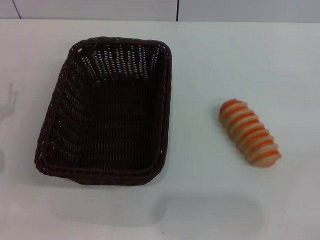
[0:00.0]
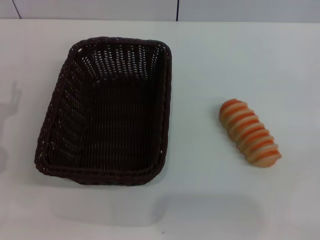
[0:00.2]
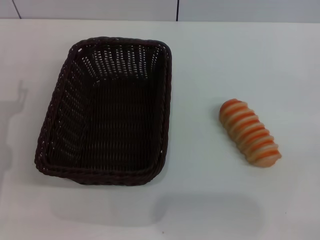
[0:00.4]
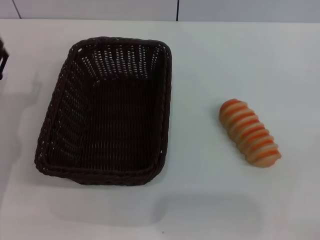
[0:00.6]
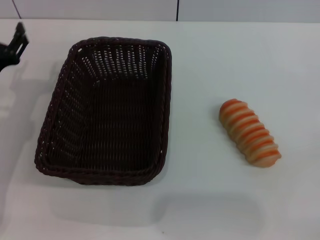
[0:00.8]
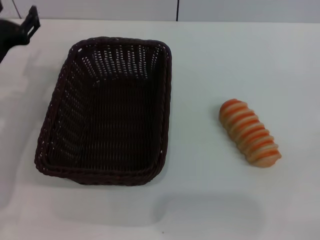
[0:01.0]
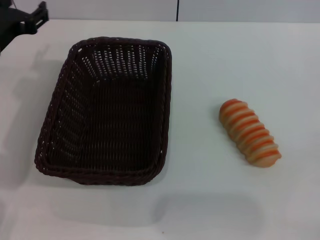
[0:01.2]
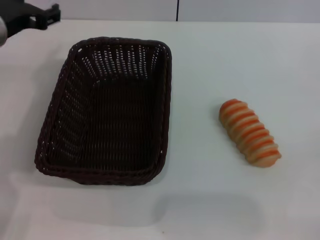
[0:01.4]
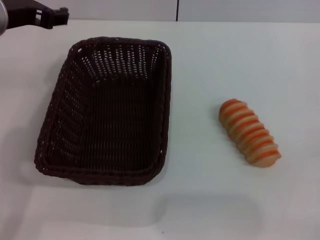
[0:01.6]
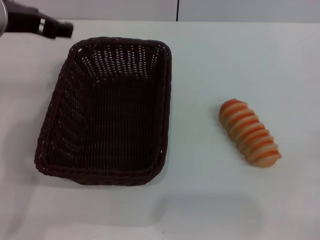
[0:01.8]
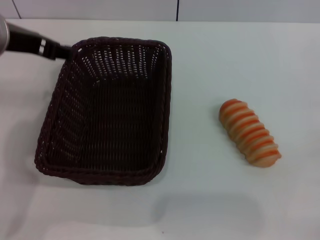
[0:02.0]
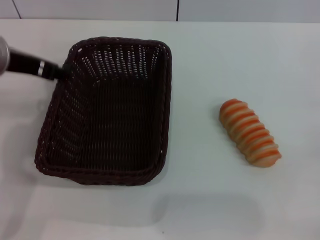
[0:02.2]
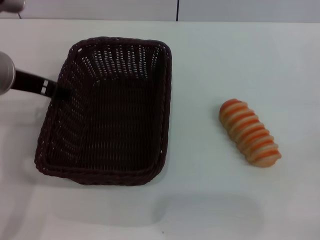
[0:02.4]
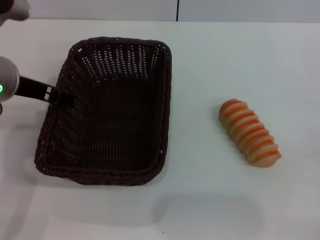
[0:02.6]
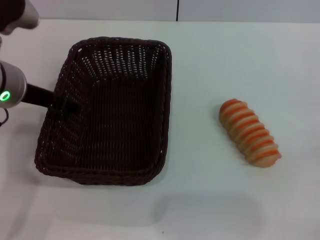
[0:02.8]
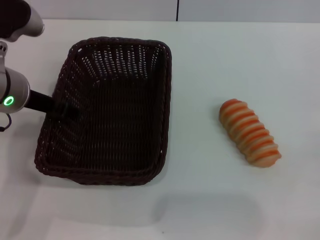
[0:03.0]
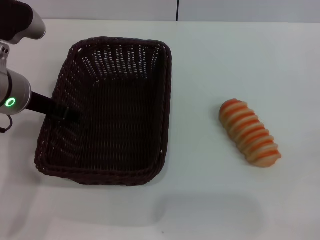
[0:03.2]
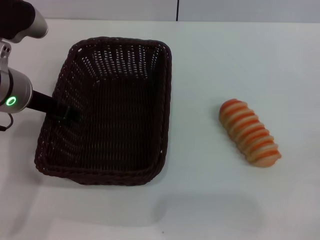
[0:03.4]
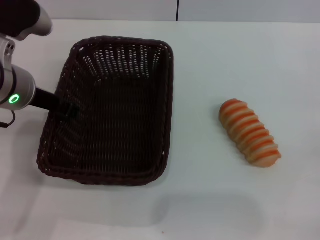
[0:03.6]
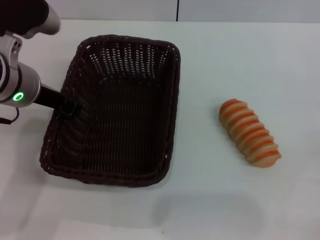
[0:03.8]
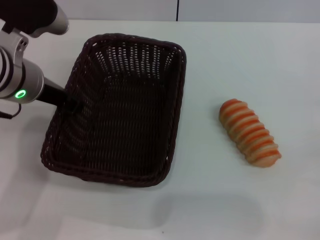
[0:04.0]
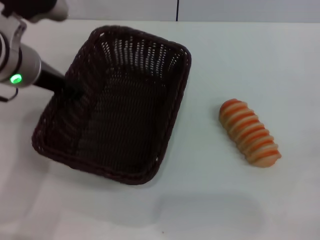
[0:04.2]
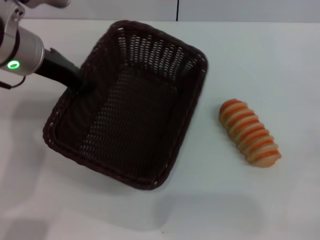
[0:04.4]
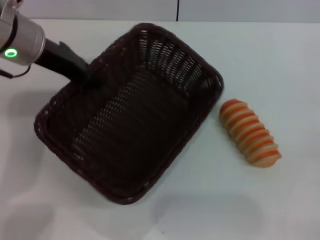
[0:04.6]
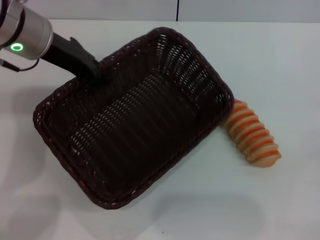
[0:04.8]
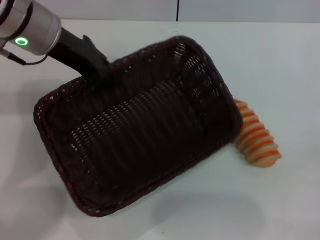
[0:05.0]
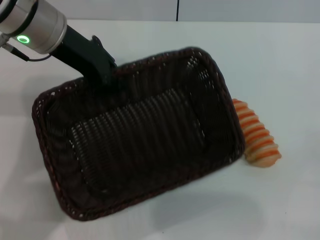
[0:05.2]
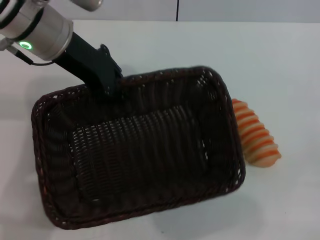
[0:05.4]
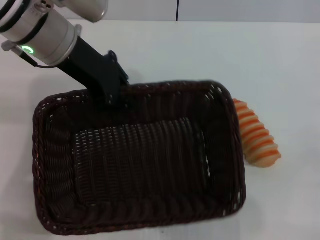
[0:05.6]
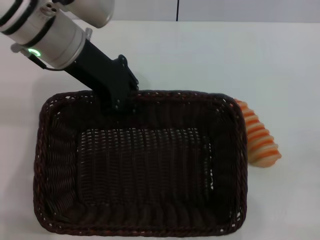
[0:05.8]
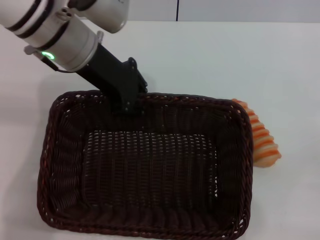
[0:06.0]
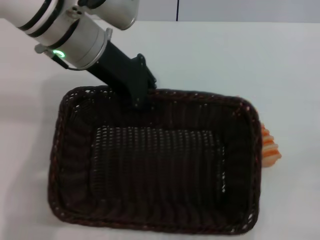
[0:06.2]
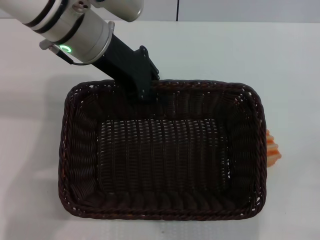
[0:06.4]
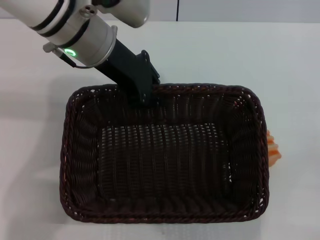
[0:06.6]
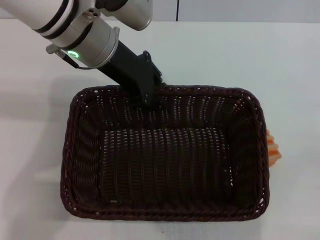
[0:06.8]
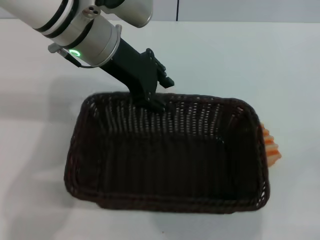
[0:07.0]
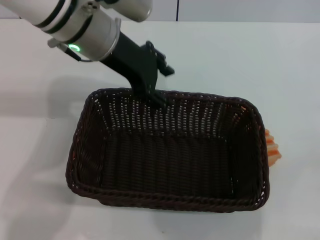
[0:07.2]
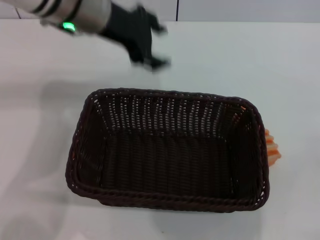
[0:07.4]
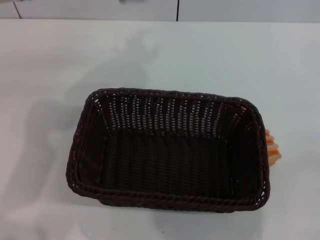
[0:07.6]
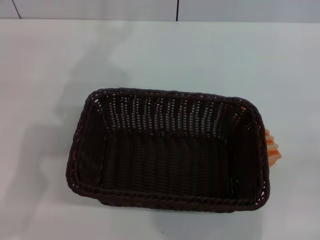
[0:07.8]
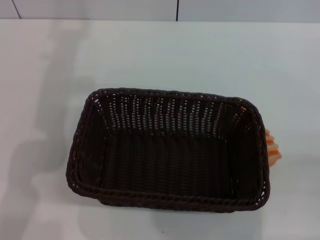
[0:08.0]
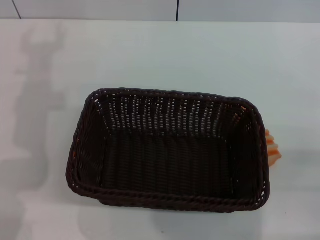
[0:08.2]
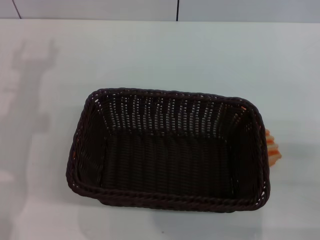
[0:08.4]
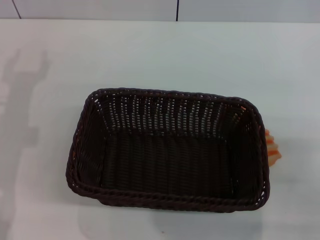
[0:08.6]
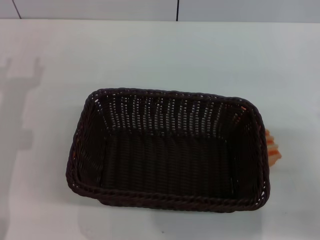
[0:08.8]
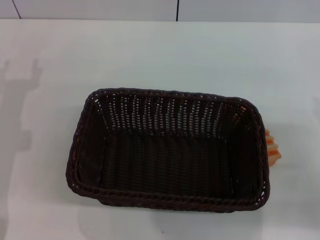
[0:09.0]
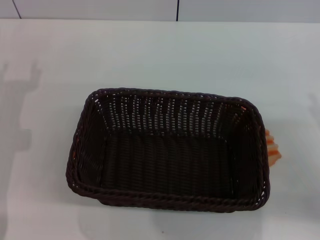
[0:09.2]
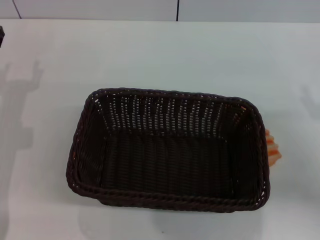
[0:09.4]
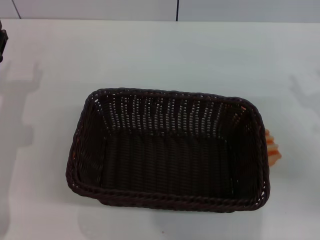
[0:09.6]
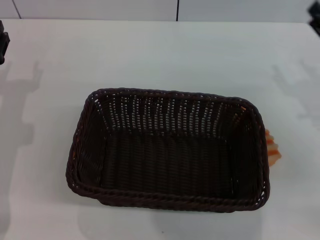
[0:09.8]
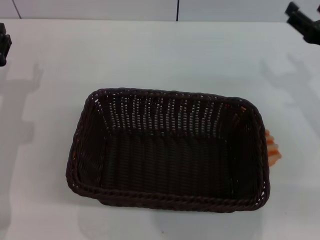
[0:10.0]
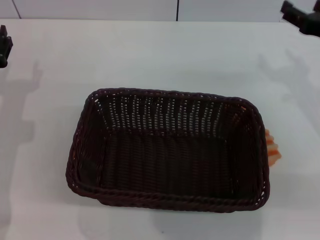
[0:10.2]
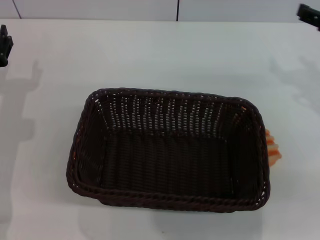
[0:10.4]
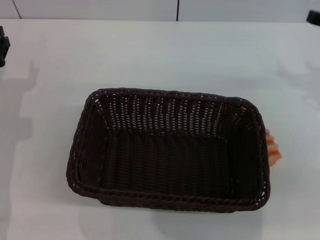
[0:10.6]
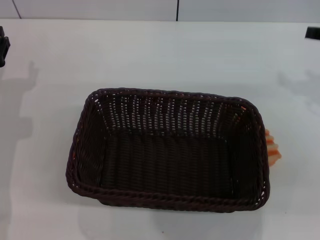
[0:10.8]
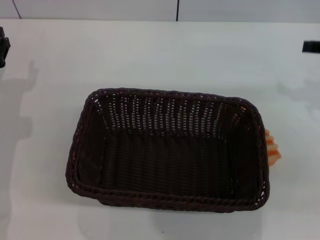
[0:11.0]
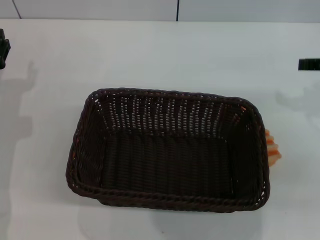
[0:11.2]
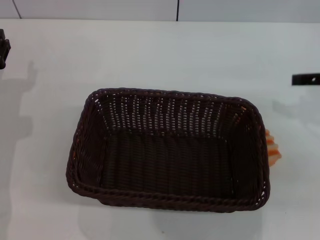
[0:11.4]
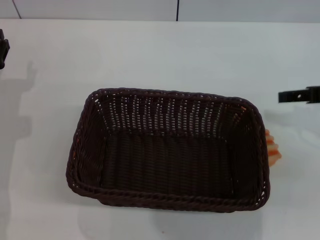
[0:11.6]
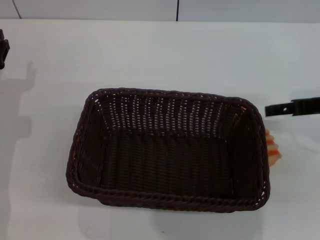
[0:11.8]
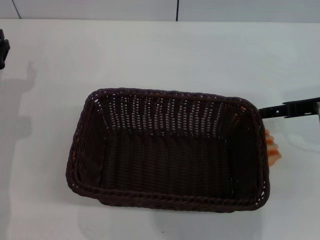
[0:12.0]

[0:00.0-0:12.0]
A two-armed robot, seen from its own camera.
Step, 0:00.0 to 0:04.8: Pick up the dark basket with the left gripper.
Step, 0:05.0 to 0:07.2: Place the dark basket in the center of view with the left gripper.
0:00.0 to 0:01.6: The left gripper shifts some 25 cm upward, to the right and forward.
0:01.6 to 0:03.0: The left gripper moves downward, approximately 5 cm.
0:03.0 to 0:04.4: The left gripper shifts by roughly 5 cm, and closes its fingers.
0:04.4 to 0:06.0: The left gripper travels to the right by approximately 5 cm.
0:06.0 to 0:07.6: The left gripper opens up.
0:07.6 to 0:09.0: The right gripper shifts some 5 cm forward; the left gripper moves downward, to the left and backward, about 25 cm.
0:09.0 to 0:10.4: The right gripper shifts roughly 15 cm upward and forward.

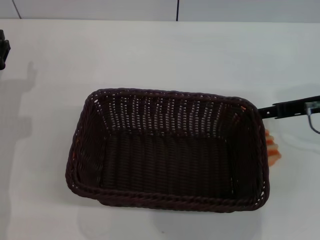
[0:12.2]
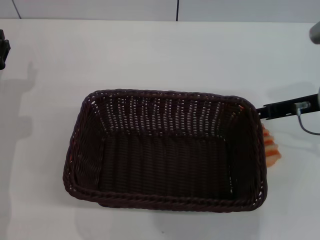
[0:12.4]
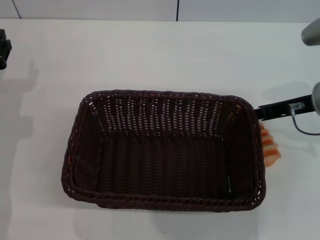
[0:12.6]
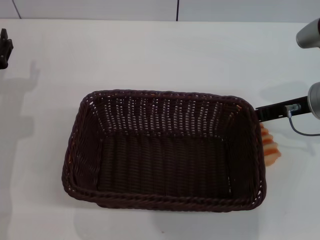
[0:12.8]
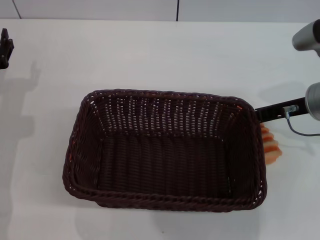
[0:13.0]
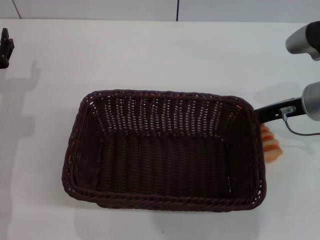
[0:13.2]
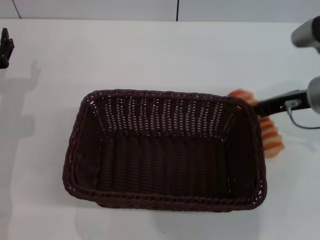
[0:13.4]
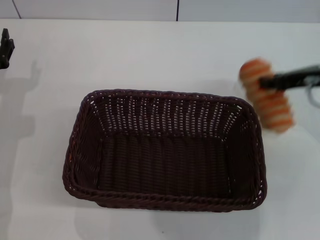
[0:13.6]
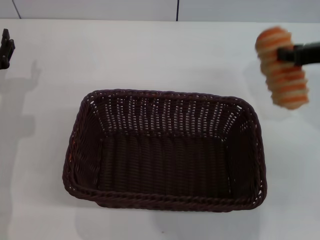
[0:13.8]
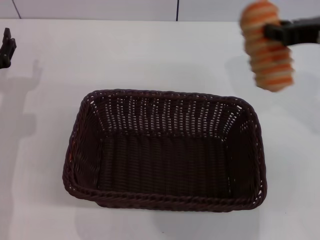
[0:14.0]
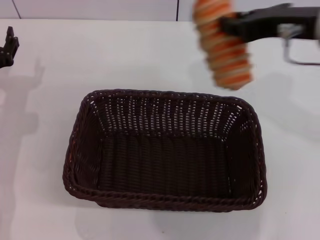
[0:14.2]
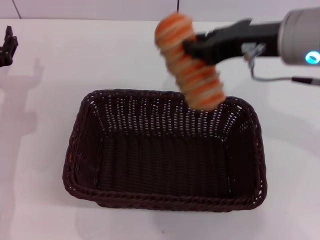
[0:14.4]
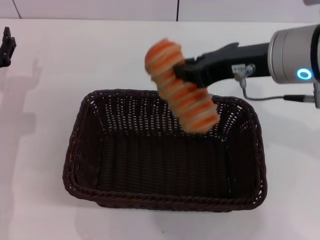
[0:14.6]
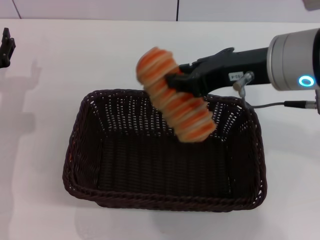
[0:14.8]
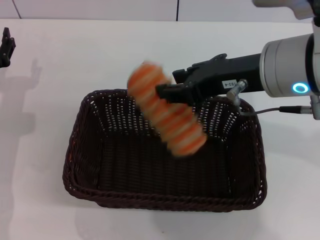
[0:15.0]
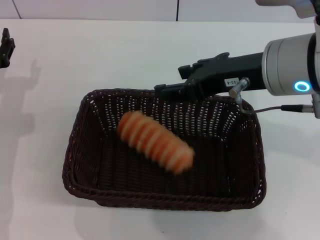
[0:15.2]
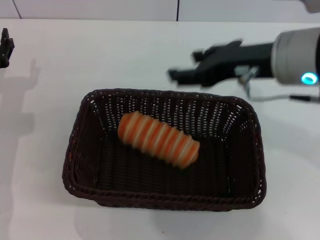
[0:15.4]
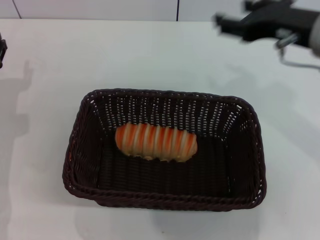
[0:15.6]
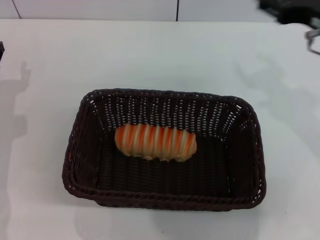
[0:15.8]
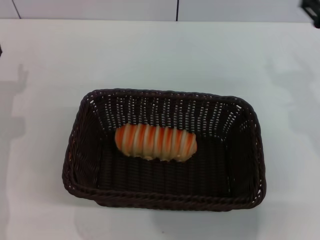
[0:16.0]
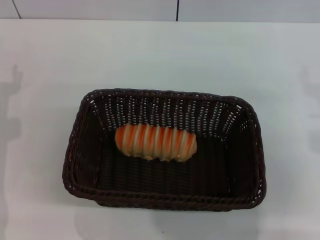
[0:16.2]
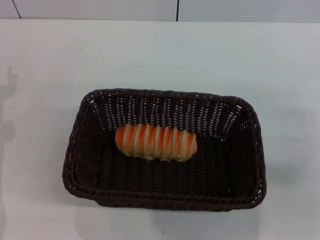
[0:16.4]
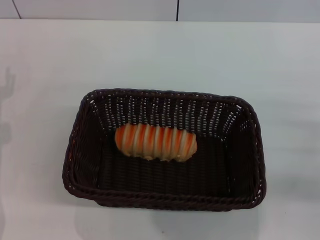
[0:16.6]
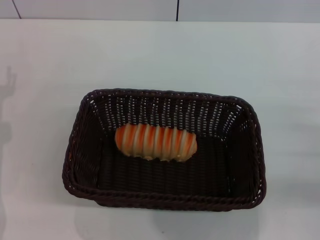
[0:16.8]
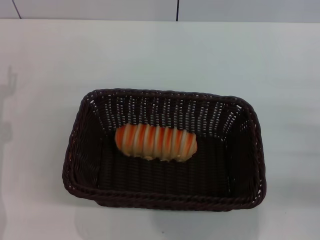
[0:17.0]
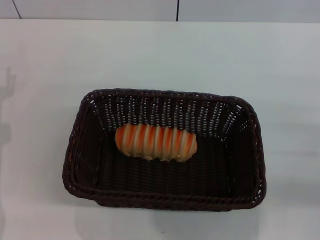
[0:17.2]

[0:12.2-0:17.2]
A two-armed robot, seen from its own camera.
Step, 0:14.0 to 0:15.2: Place the long bread into the dark basket with the right gripper.
0:12.2 to 0:13.8: The right gripper heads upward, covering roughly 5 cm, and closes up.
0:13.8 to 0:15.6: The right gripper moves to the left, approximately 5 cm, and opens up.
0:15.6 to 0:17.2: The right gripper shifts roughly 25 cm downward, to the right and backward.

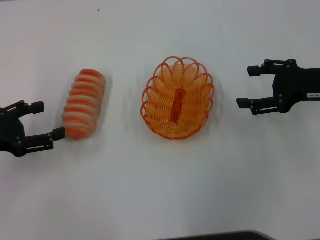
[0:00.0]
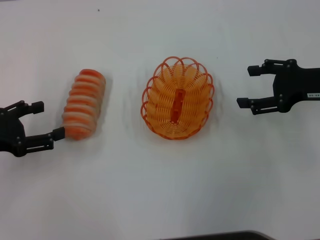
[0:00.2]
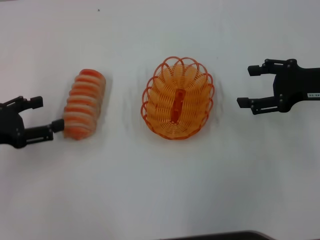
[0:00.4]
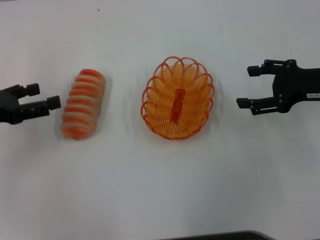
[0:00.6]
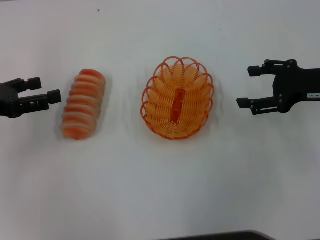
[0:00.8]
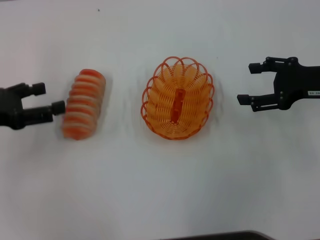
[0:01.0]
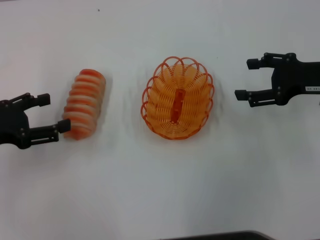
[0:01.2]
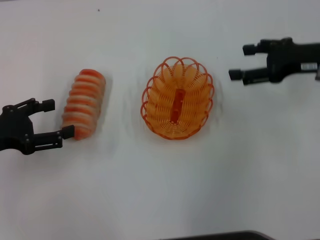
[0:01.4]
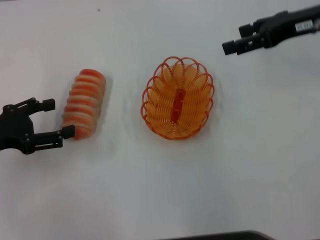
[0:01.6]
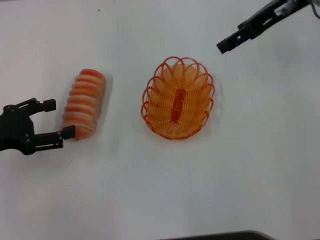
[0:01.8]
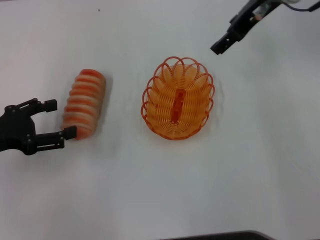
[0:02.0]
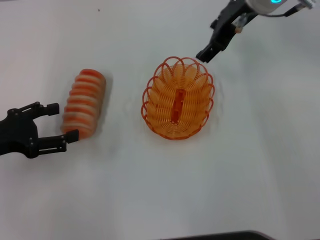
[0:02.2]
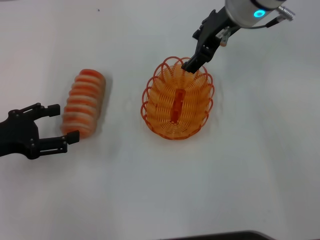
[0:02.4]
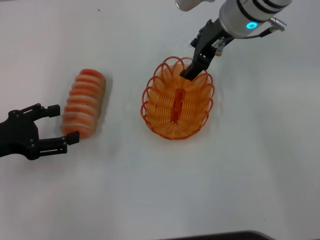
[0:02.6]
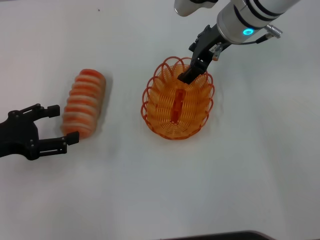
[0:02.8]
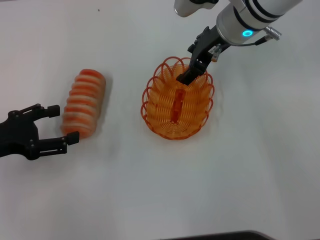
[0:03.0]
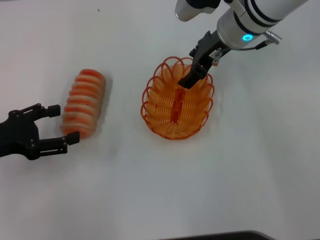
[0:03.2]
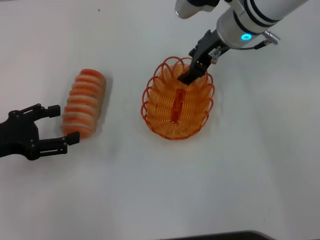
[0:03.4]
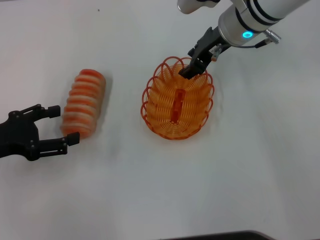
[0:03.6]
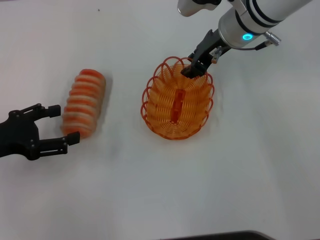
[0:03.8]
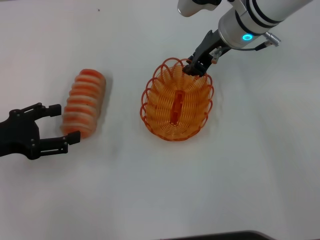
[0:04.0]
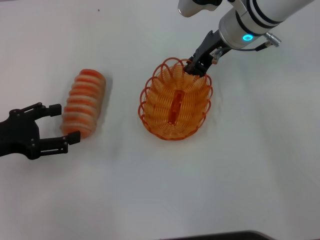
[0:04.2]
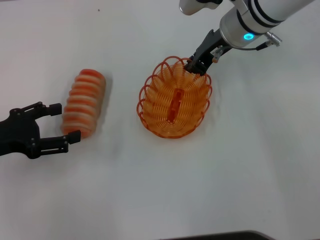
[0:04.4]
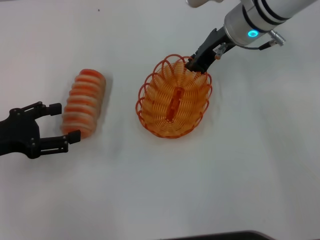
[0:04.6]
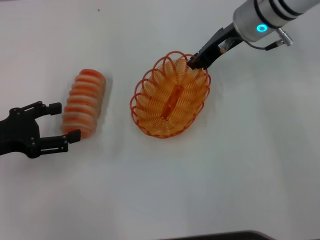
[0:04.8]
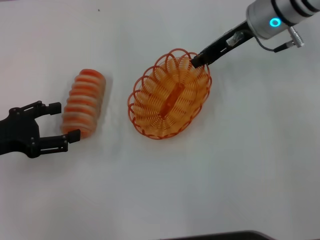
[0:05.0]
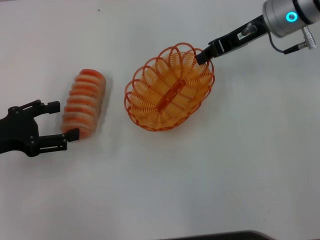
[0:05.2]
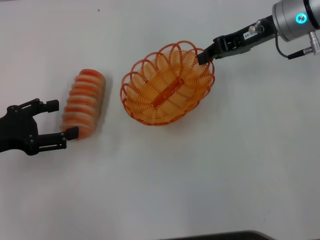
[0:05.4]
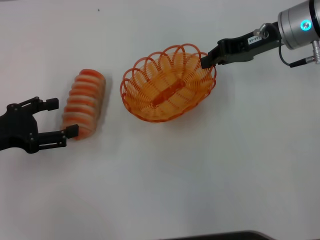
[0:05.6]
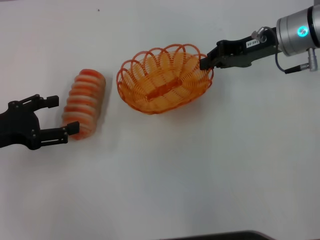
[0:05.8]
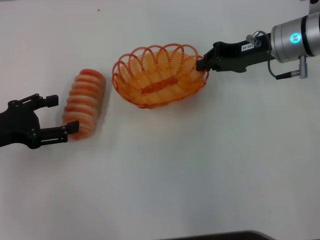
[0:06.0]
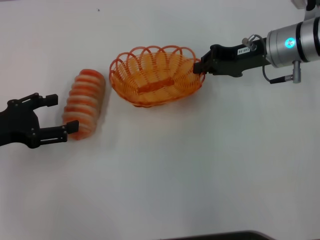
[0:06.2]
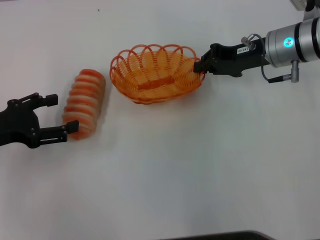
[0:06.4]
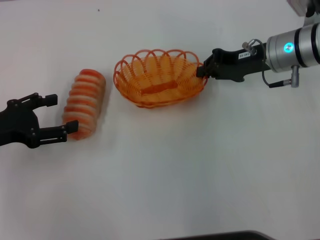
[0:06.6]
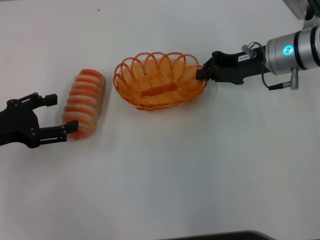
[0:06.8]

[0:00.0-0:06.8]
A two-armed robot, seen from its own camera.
Step, 0:00.0 to 0:05.0: Pick up the basket with the right gripper.
0:00.0 to 0:01.4: The grippers stay close to where they were, moving slightly.
0:01.4 to 0:02.8: The right gripper goes roughly 20 cm to the left and forward.
0:02.8 to 0:04.0: The right gripper closes.
0:04.0 to 0:05.4: The right gripper goes roughly 10 cm to the right, and closes up.
0:05.4 to 0:06.8: The right gripper shifts roughly 5 cm downward.
